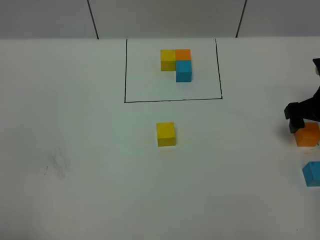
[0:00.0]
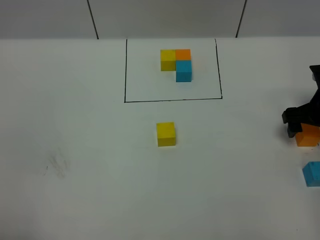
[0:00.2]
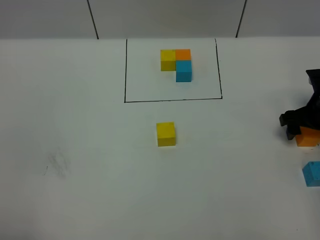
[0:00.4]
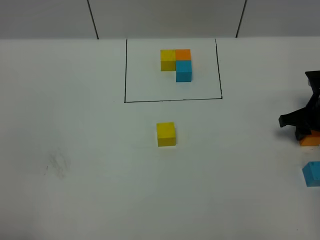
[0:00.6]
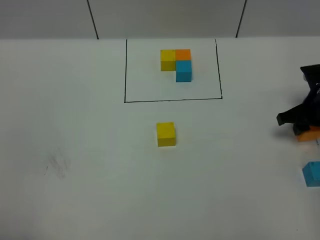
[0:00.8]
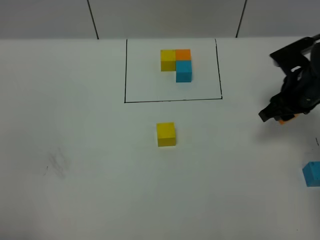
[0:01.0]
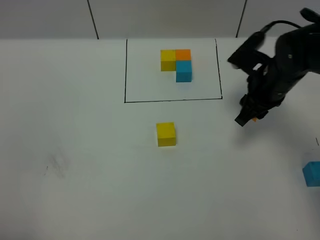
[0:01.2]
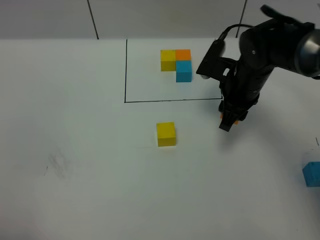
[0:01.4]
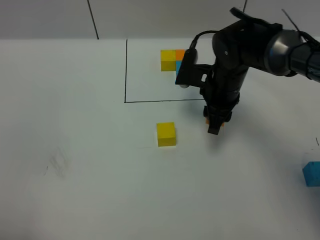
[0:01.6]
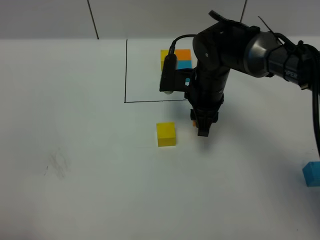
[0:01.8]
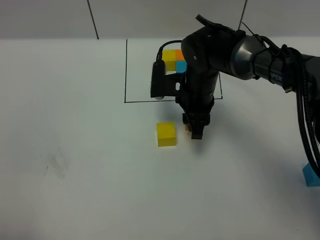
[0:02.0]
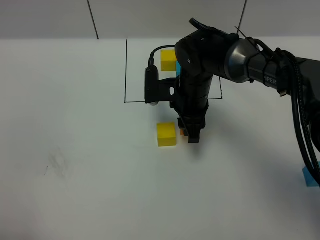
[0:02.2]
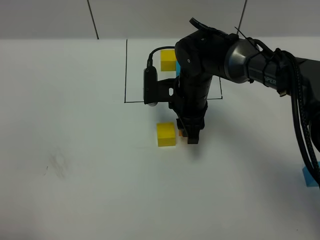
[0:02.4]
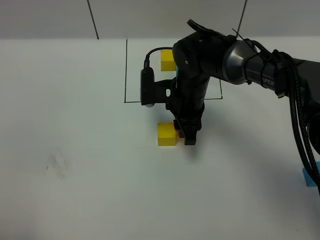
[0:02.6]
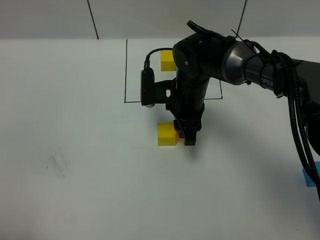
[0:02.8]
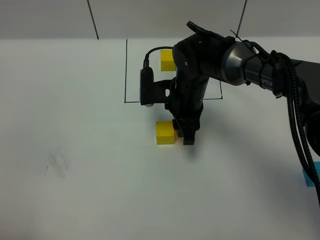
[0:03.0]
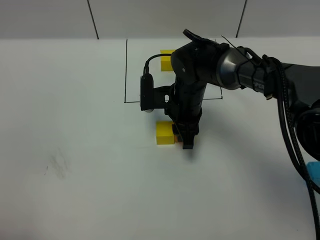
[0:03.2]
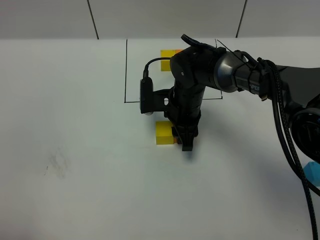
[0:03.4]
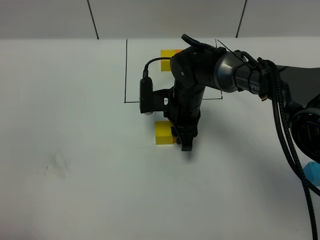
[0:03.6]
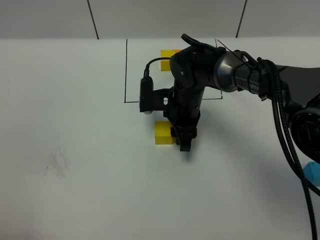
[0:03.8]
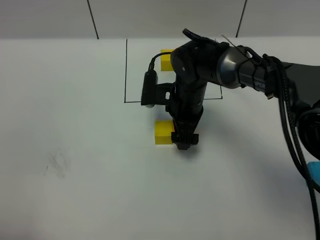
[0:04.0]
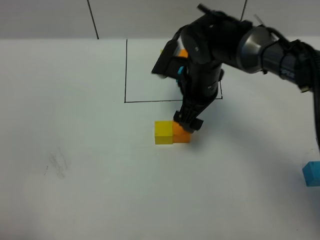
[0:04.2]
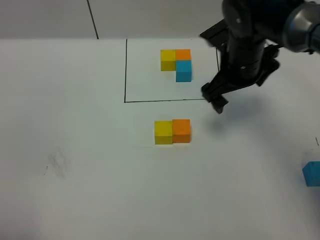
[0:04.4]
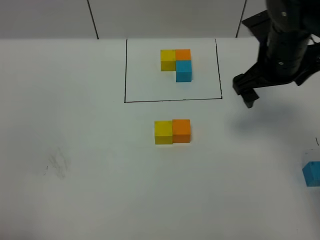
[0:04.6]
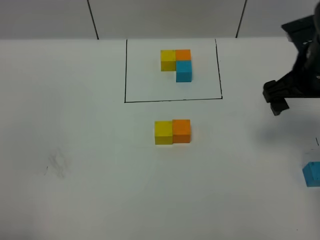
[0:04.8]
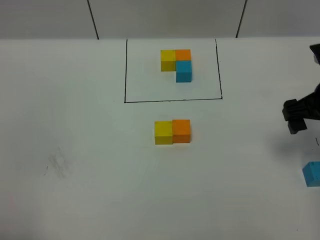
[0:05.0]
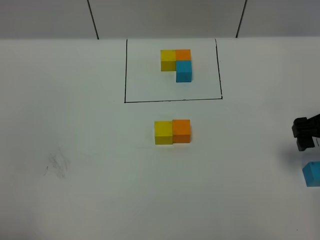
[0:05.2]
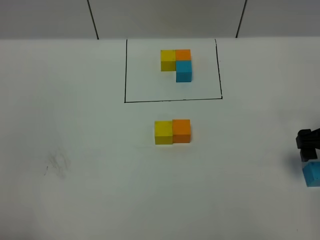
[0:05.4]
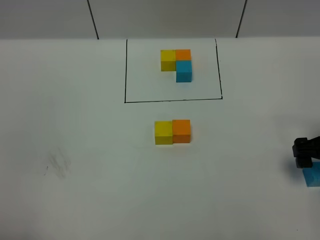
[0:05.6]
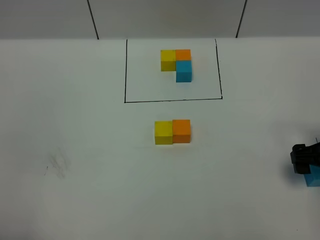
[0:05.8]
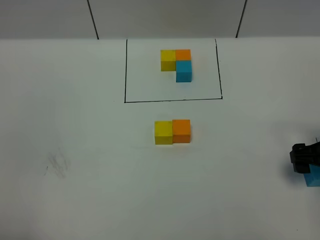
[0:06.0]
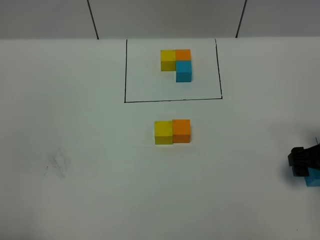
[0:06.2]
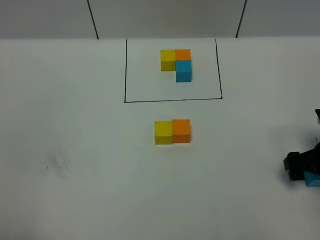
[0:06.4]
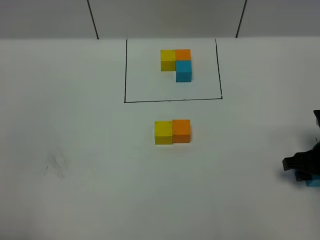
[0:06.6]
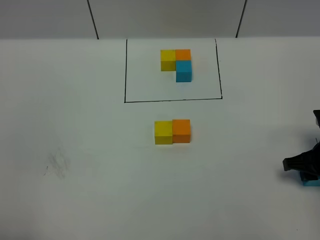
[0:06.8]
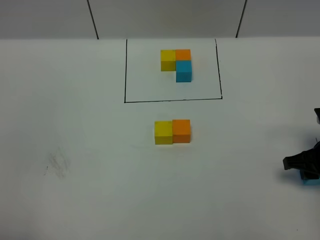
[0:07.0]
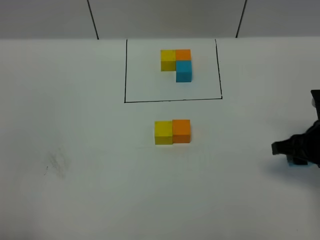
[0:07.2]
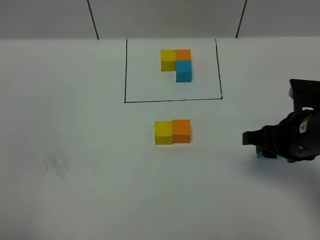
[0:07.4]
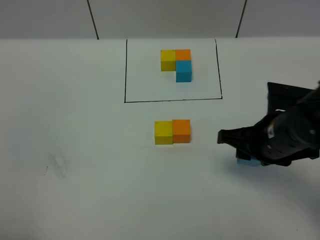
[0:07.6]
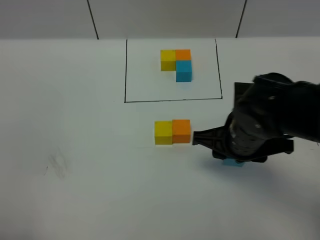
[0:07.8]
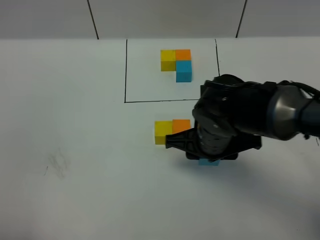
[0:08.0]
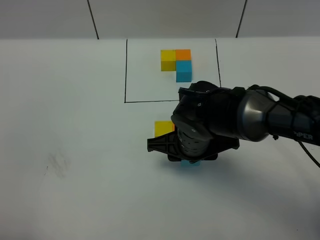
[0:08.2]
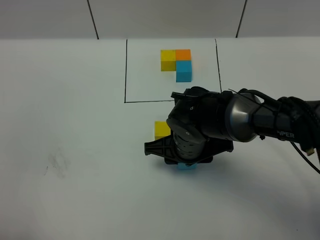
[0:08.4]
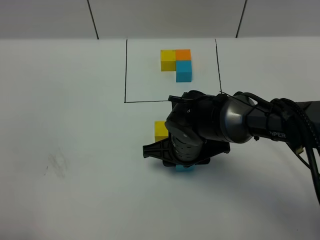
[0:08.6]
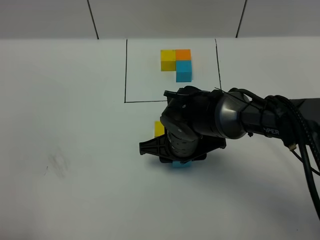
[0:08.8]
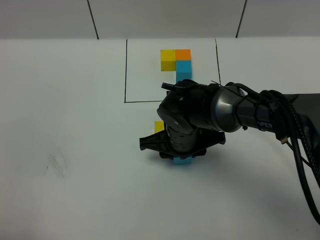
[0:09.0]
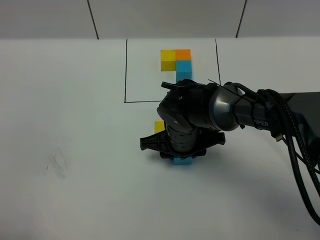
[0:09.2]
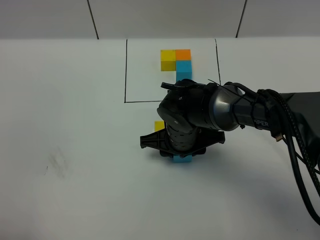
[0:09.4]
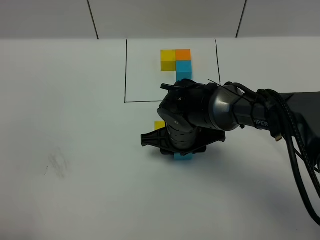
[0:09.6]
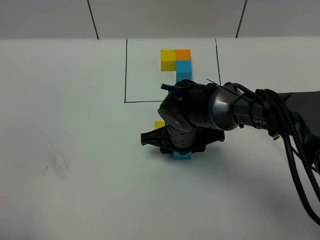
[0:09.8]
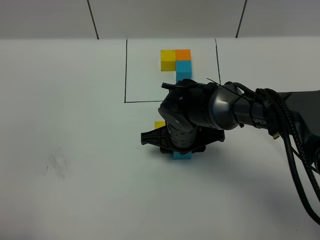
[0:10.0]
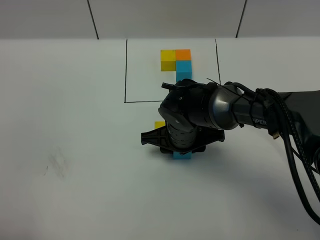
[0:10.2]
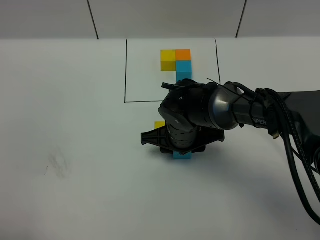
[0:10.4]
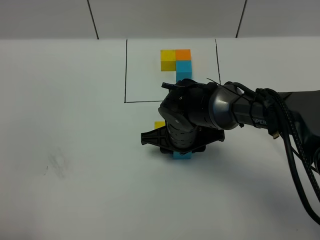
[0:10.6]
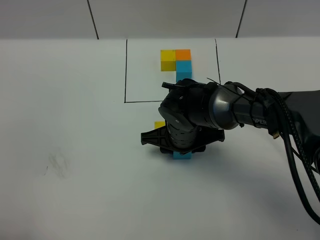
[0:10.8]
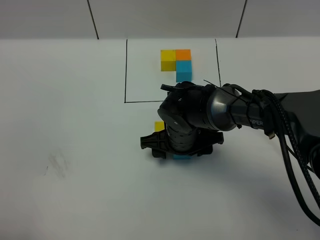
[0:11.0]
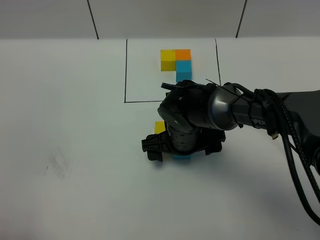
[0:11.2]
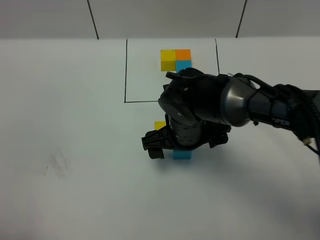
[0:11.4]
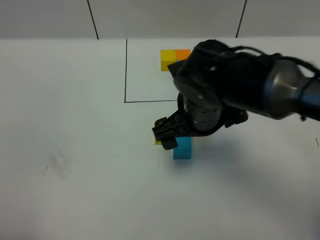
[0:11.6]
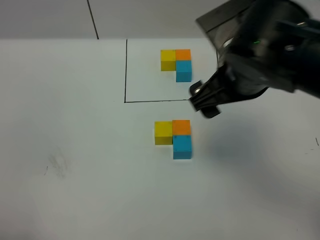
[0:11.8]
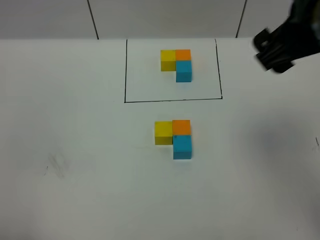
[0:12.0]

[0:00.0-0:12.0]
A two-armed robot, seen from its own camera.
Task of the whole recording: According to the building block template in front, assemble the scattered blocks together.
Step, 0:00.0 to 0:04.0: Put the orange cube on the right of the yellow cube.
Step, 0:04.2 to 0:11.4: Put the blue cube in the front of the orange cube.
0:00.0 to 0:01.6: The right gripper shifts approximately 20 cm to the left, and closes its fingers.
0:01.6 to 0:03.0: The right gripper heads to the left, covering some 5 cm.
0:03.0 to 0:04.4: The right gripper is displaced to the right and upward by roughly 15 cm, and opens up.
0:04.4 to 0:06.0: The right gripper is displaced to the right, backward and downward by approximately 20 cm.
0:06.0 to 0:07.6: The right gripper shifts some 15 cm to the left, and closes its fingers.
0:07.6 to 0:09.0: The right gripper heads to the left, downward and forward, covering approximately 15 cm.
0:09.0 to 0:10.4: There are only small adjustments of the grippers.
0:10.4 to 0:12.0: The right gripper moves upward and to the right, roughly 35 cm, and opens.

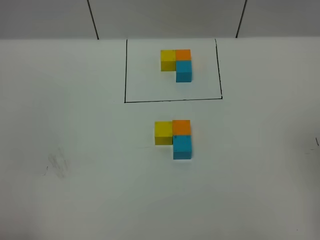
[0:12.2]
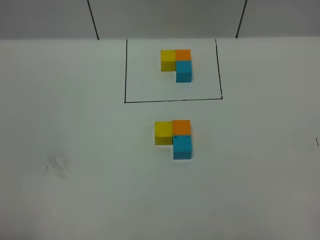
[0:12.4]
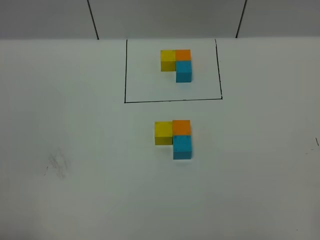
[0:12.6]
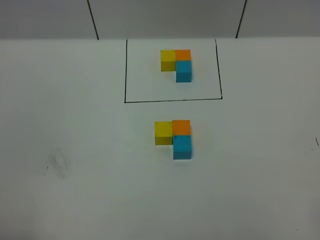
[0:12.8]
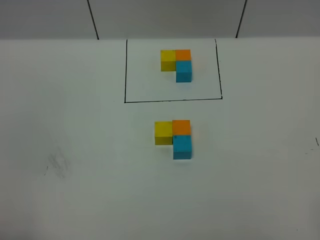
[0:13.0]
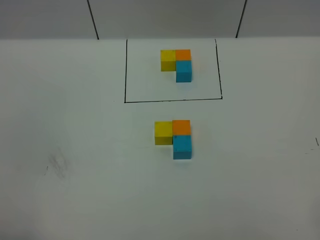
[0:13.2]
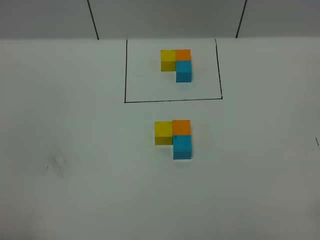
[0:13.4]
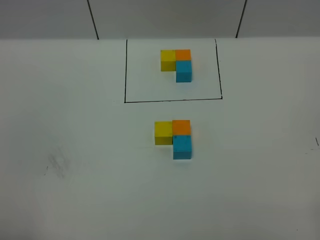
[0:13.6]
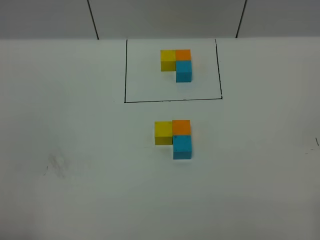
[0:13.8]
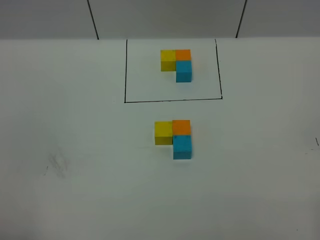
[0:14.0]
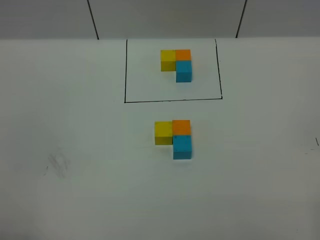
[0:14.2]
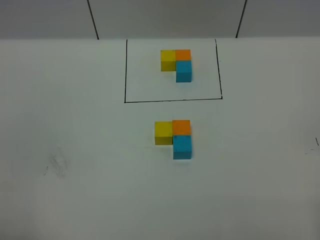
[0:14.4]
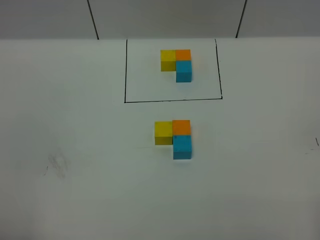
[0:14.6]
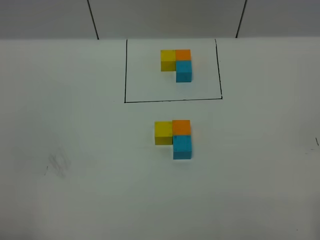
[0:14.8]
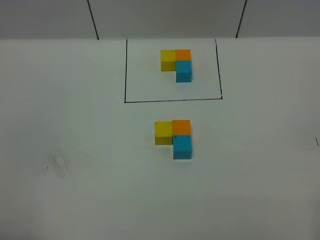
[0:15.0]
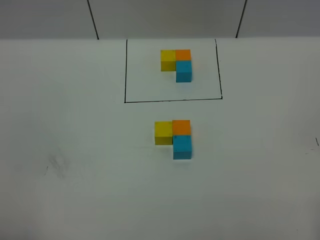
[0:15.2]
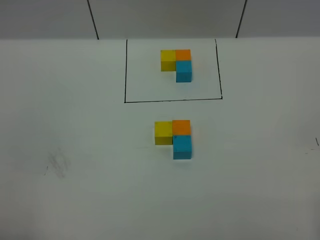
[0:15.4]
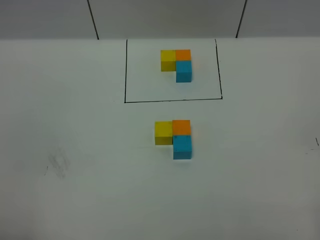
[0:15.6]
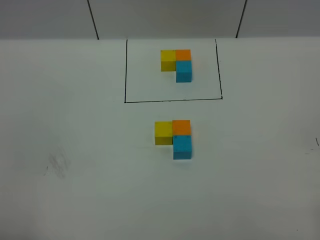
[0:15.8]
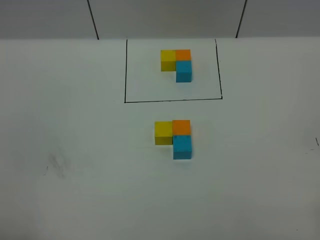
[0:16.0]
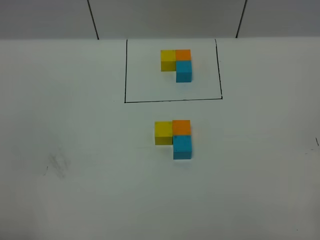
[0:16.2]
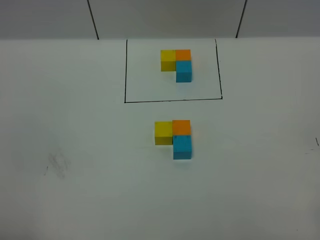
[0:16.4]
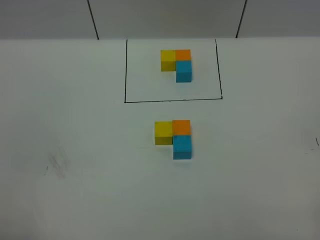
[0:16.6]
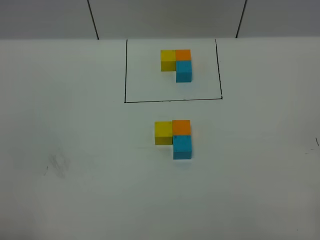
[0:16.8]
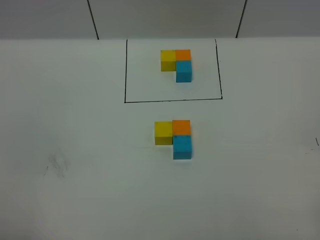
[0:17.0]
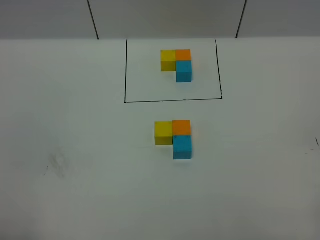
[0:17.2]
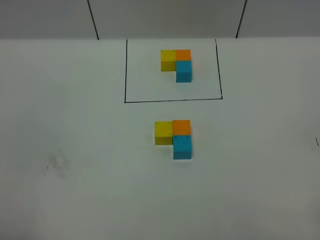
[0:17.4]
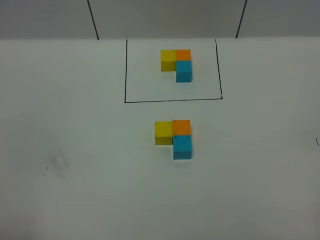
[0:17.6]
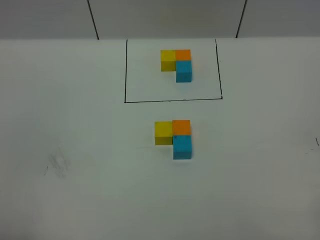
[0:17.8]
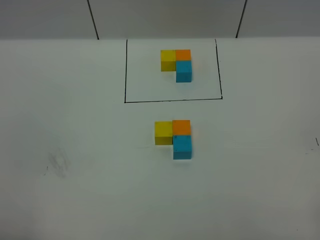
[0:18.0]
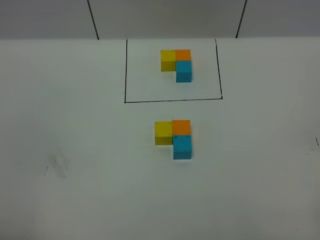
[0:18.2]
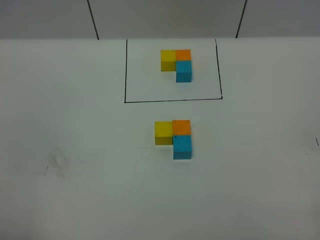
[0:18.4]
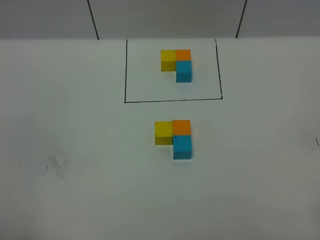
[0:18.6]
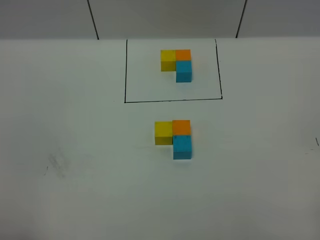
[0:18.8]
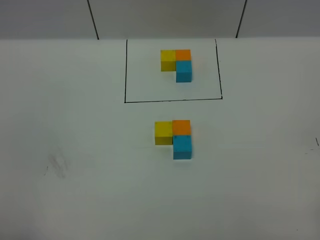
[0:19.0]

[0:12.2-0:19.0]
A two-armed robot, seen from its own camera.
Task of the whole recording: According to the building block template in front, assemble the scattered blocks together.
0:16.2 to 0:19.0: Both grippers stay about where they are.
